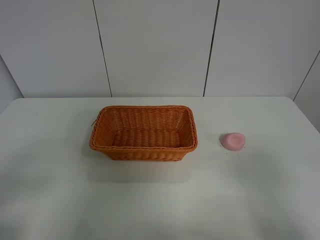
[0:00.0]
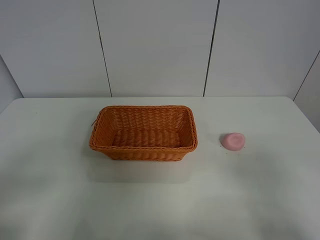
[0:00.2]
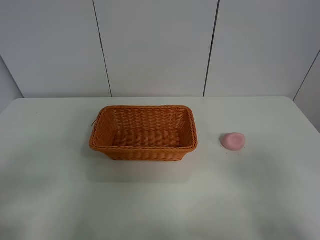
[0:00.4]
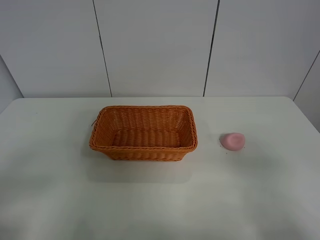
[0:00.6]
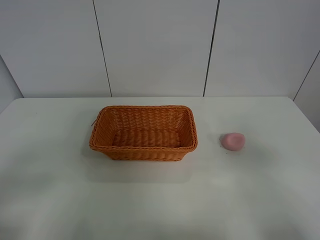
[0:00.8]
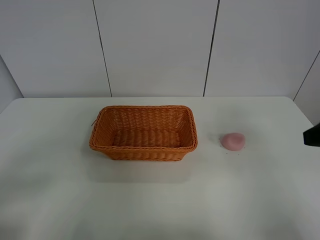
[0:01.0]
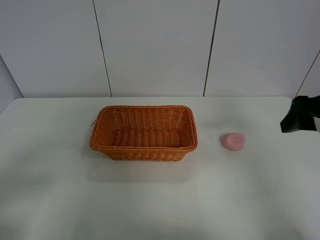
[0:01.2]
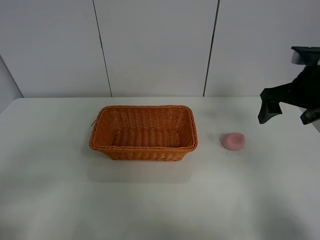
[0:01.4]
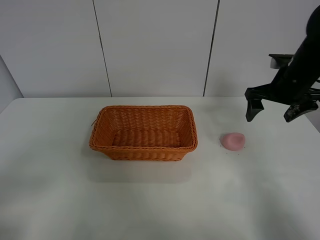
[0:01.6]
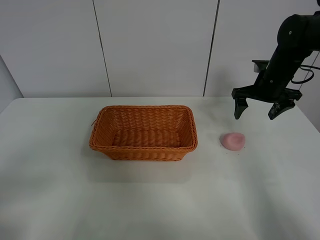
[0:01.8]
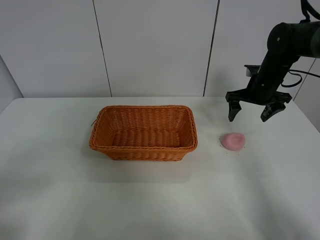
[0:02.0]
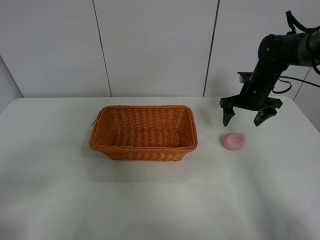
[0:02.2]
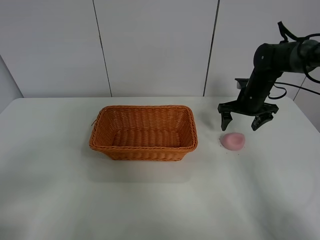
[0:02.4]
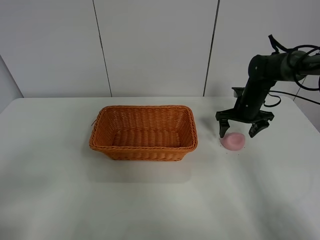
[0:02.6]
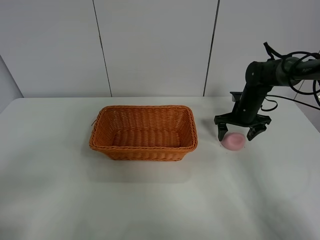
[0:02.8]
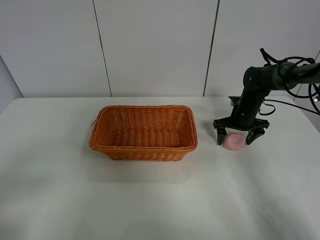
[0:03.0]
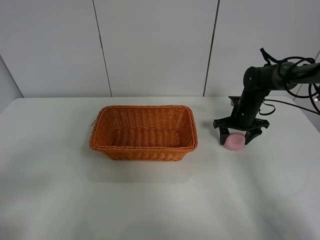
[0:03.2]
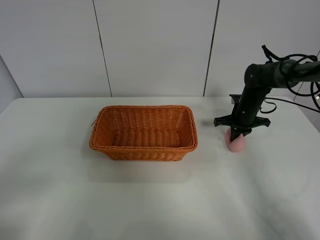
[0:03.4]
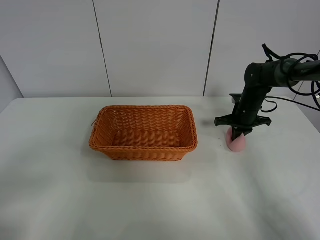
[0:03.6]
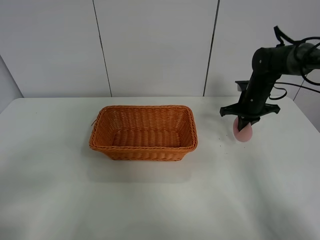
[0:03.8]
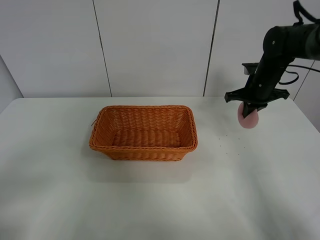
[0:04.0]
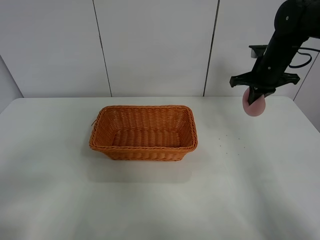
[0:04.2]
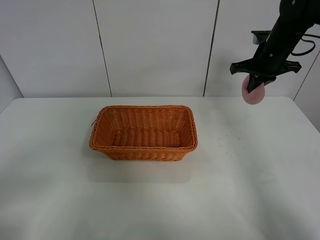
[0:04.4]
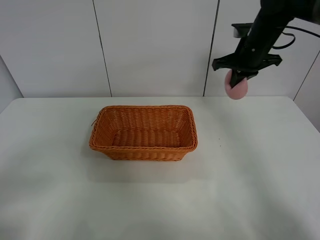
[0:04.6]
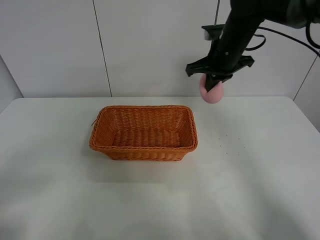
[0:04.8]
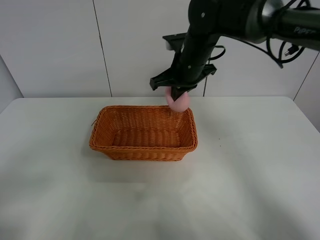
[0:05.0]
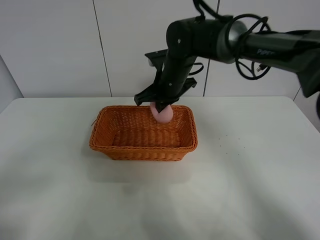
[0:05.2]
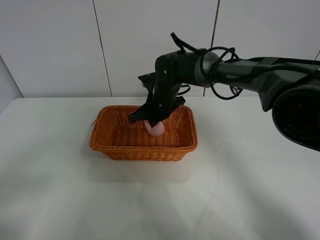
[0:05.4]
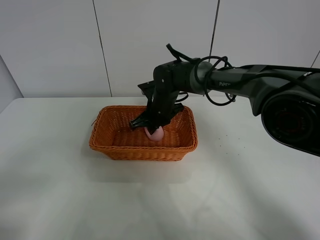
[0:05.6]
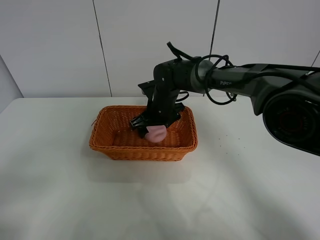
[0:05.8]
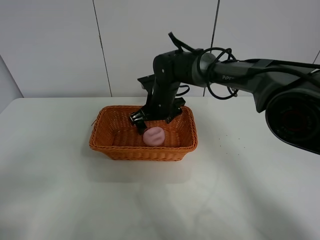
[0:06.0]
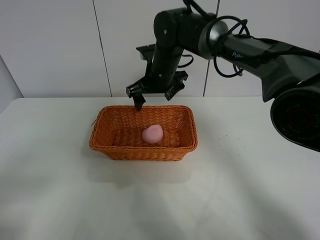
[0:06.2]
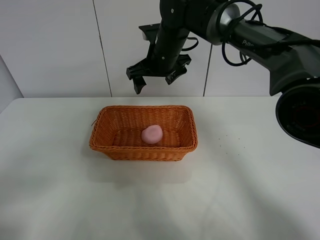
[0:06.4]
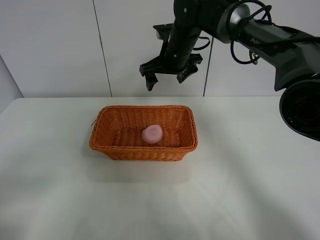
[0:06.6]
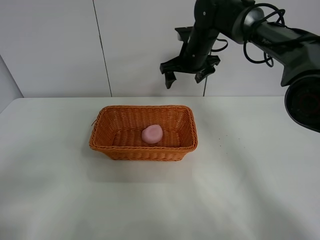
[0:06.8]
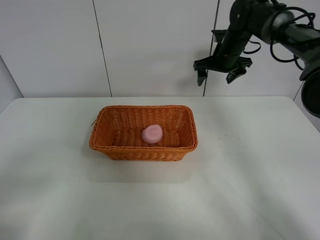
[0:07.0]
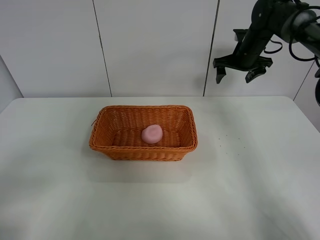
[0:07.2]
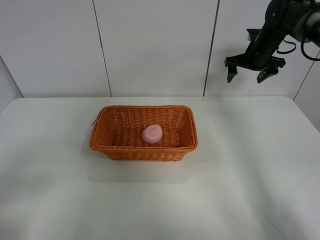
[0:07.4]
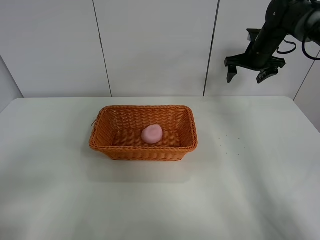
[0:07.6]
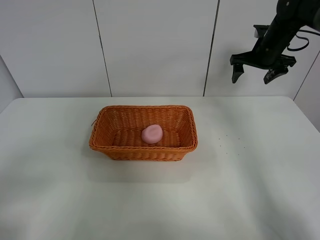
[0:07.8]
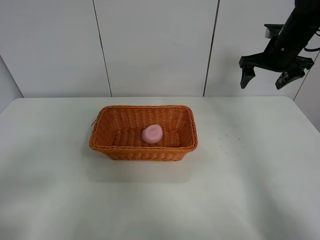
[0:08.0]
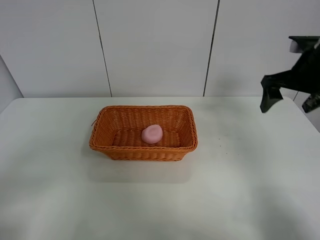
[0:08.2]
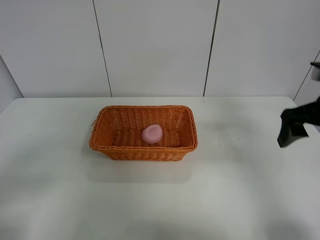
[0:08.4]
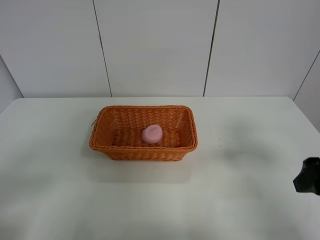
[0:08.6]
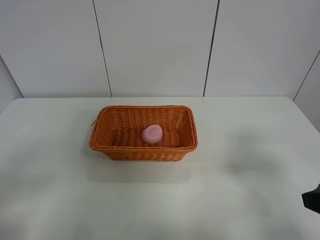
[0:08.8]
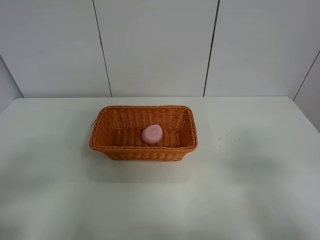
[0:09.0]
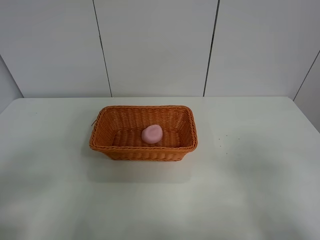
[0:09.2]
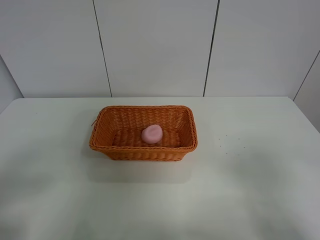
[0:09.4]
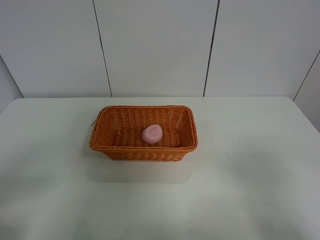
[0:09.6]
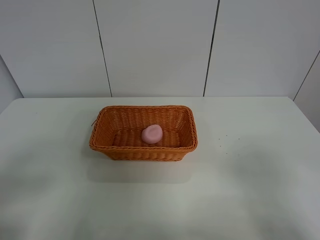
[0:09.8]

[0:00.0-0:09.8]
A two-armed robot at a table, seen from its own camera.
Step, 0:00.0 to 0:03.6: Grasp the peach with right gripper.
Step, 0:03.8 to 0:06.4: Place the peach in the basket with right gripper.
0:00.0 to 0:01.4: The right gripper shifts roughly 30 cm forward.
0:01.4 to 0:02.8: The right gripper shifts some 20 cm downward and forward.
0:02.8 to 0:04.2: The right gripper is displaced upward by approximately 15 cm, and closes its fingers.
0:04.2 to 0:05.6: The right gripper moves to the left and downward, about 25 cm, and opens up.
0:05.6 to 0:07.0: The right gripper travels to the right, upward and forward by roughly 25 cm, and opens.
0:07.0 to 0:08.4: The right gripper is displaced backward by some 30 cm.
0:08.4 to 0:09.8: The right gripper shifts some 20 cm backward.
